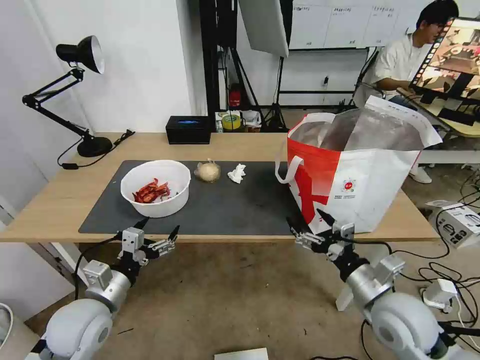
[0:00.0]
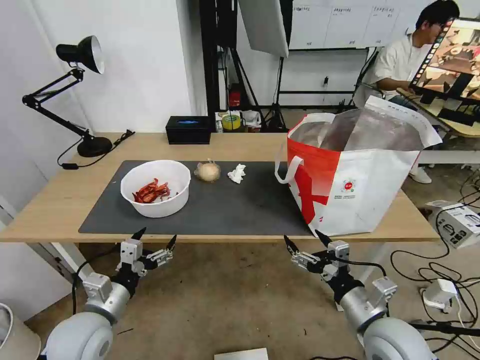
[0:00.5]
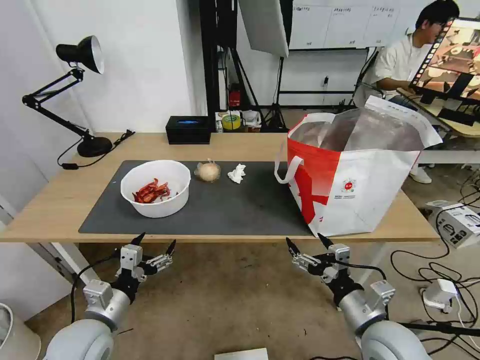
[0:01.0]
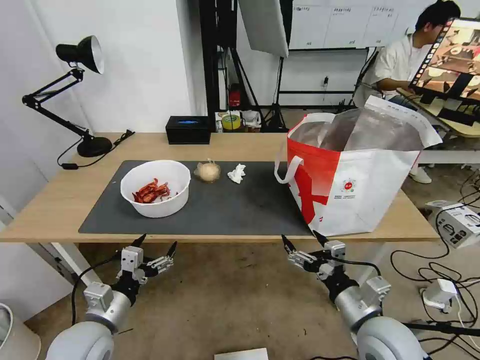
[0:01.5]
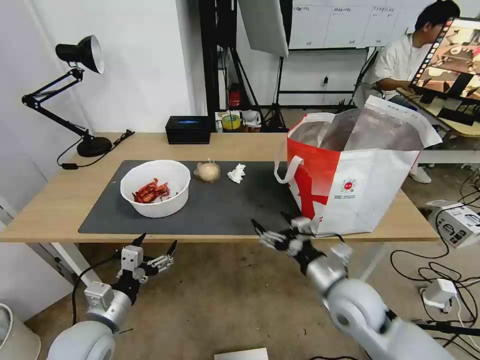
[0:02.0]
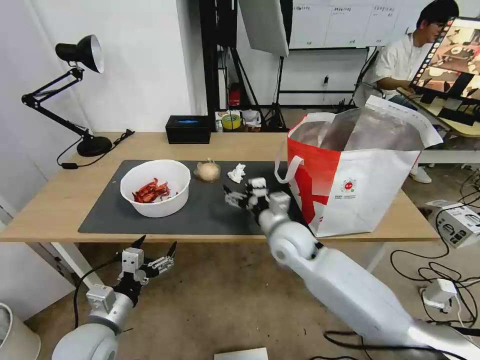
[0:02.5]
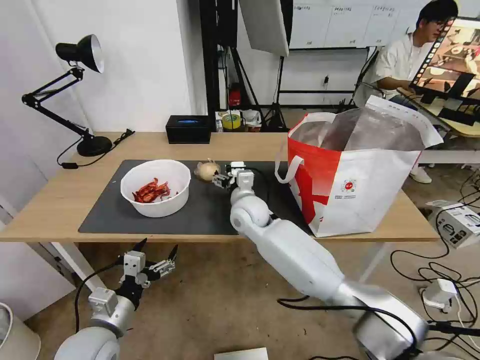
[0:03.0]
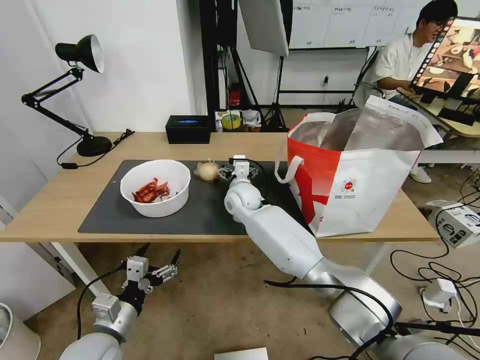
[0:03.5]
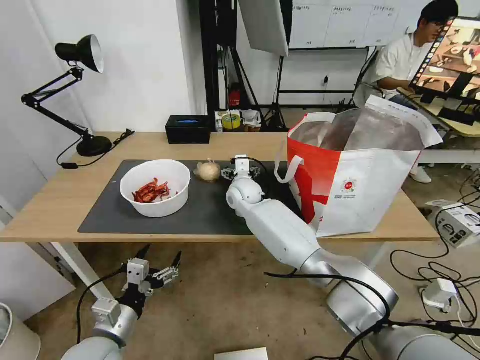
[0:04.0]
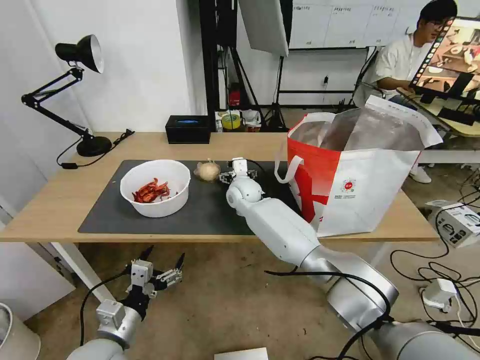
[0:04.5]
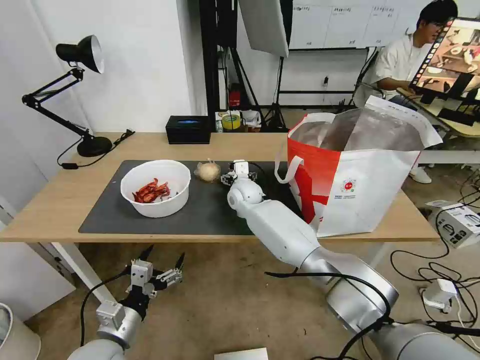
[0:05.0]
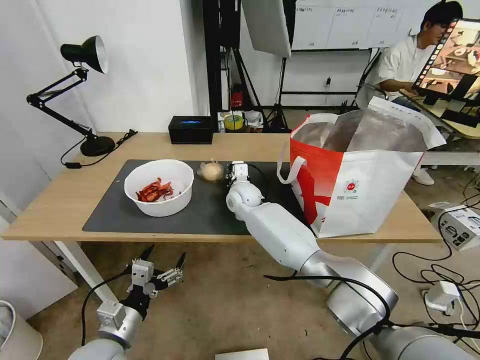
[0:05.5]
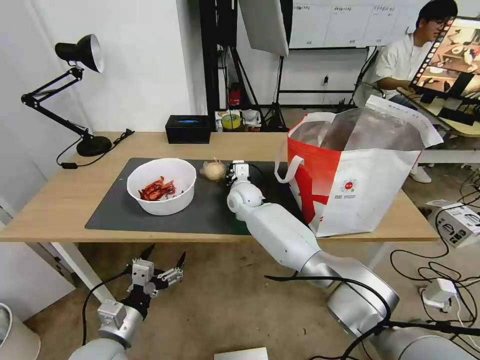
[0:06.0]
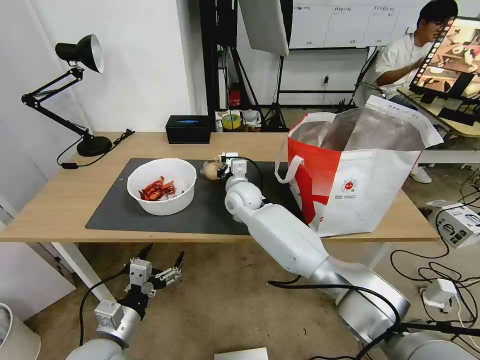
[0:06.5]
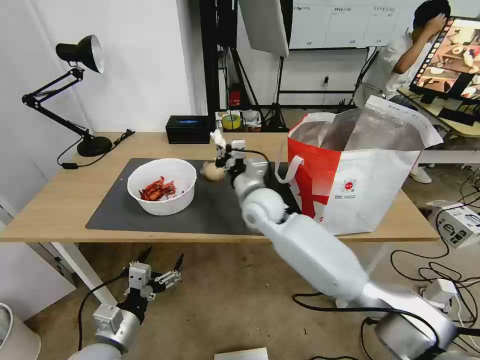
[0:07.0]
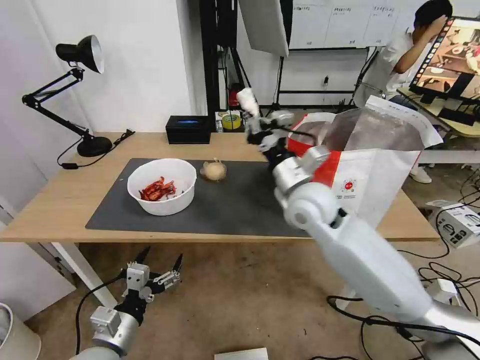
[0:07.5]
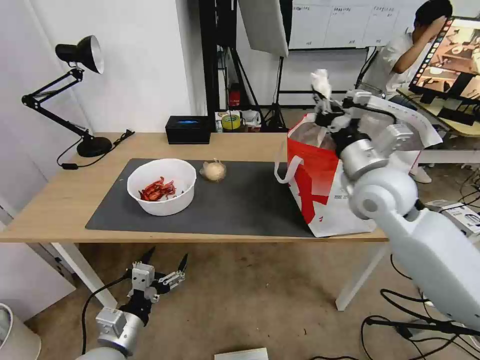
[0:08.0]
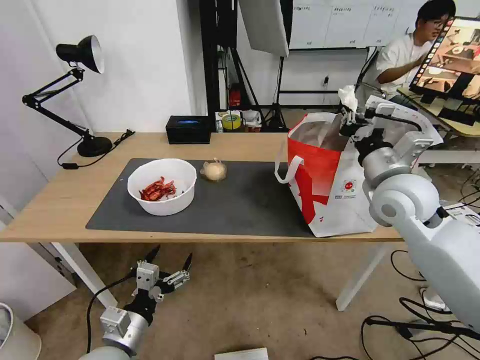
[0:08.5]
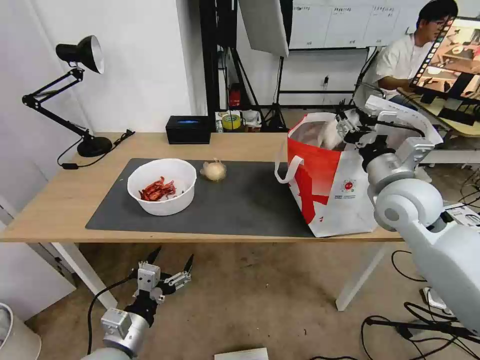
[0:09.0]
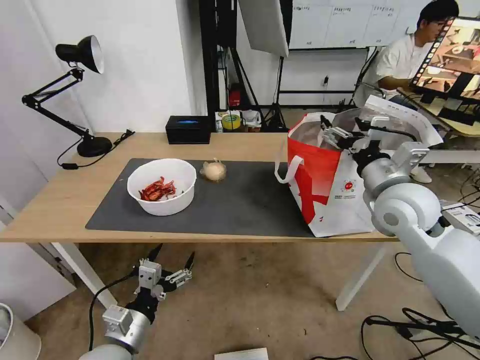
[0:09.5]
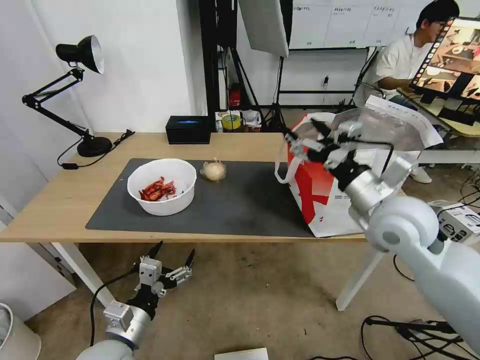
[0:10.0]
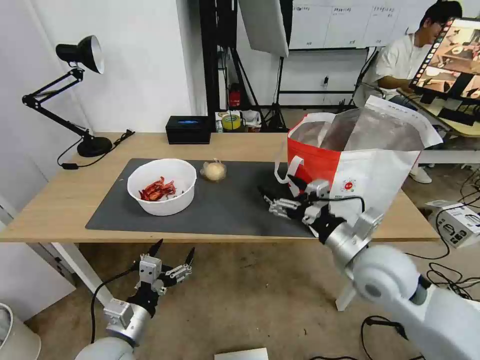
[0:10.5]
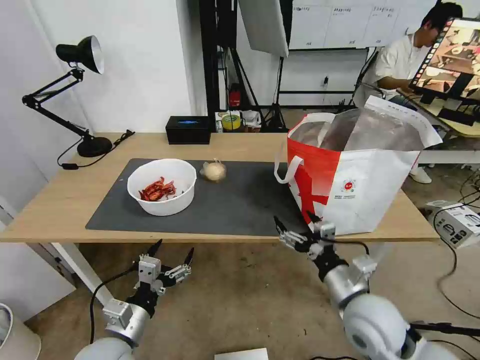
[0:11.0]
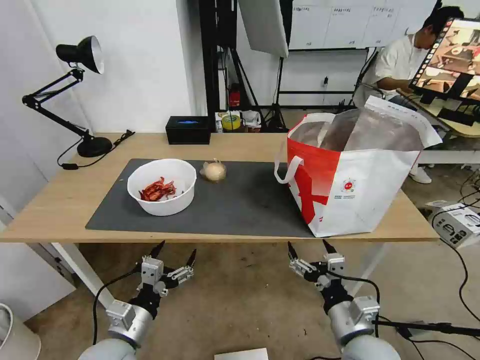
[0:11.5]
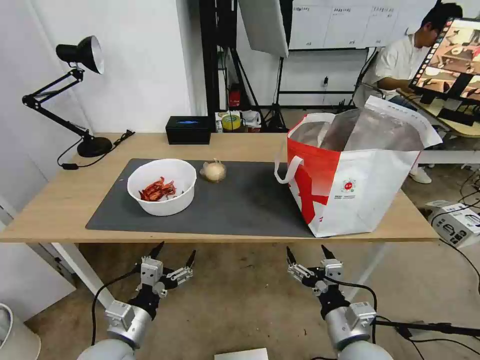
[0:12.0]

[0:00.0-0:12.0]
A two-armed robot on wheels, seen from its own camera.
Task of the whole recording: Pick up the trash from the table and place it into the takeout bag.
0:00.0 to 0:02.0: The right gripper heads to the left, covering about 5 cm.
0:02.0 to 0:04.0: The right gripper travels forward and to the left by roughly 35 cm.
0:04.0 to 0:06.0: The right gripper closes.
0:06.0 to 0:08.0: The right gripper travels to the right, upward and backward by some 35 cm.
0:08.0 to 0:10.0: The right gripper shifts about 5 cm backward, and opens.
0:10.0 to 0:12.0: The right gripper heads downward and backward, covering about 25 cm.

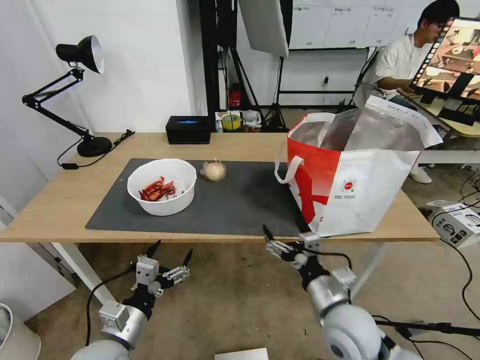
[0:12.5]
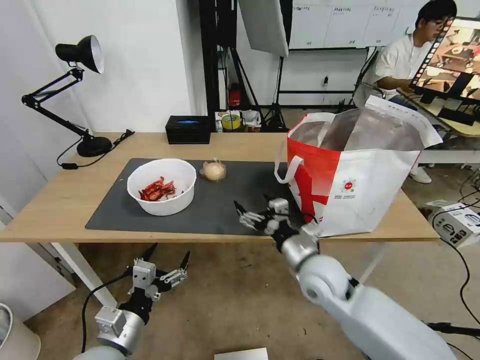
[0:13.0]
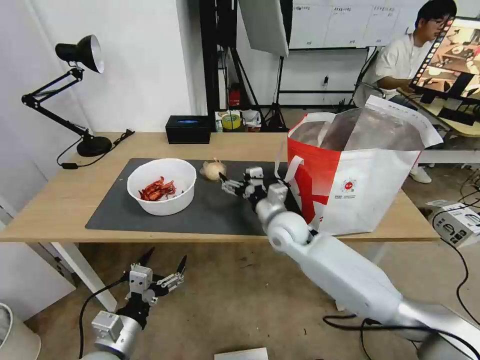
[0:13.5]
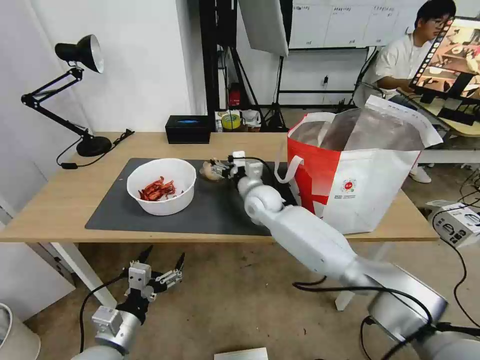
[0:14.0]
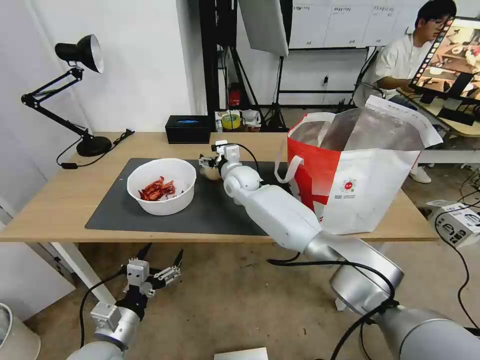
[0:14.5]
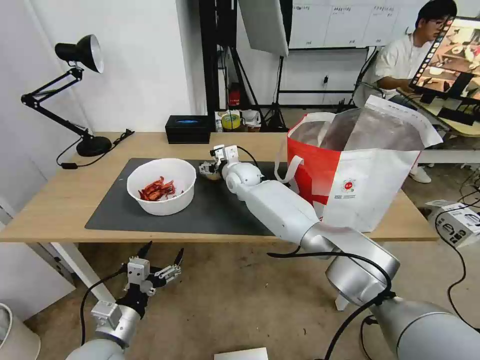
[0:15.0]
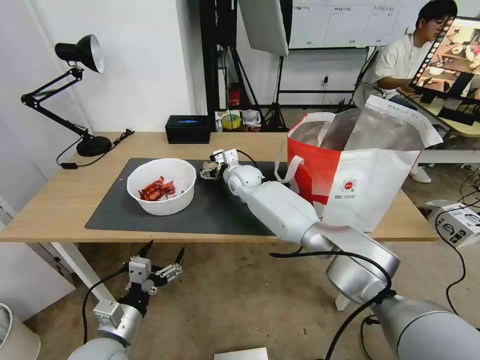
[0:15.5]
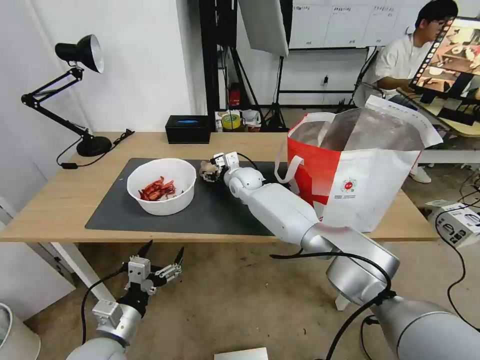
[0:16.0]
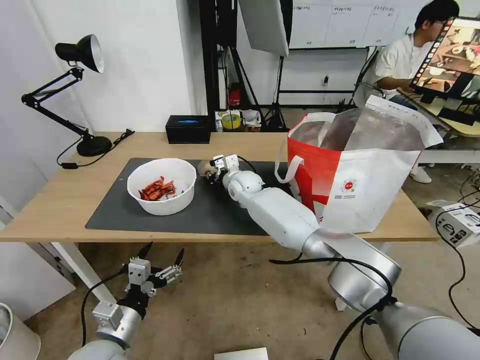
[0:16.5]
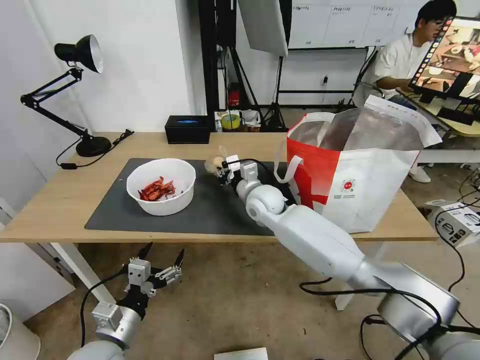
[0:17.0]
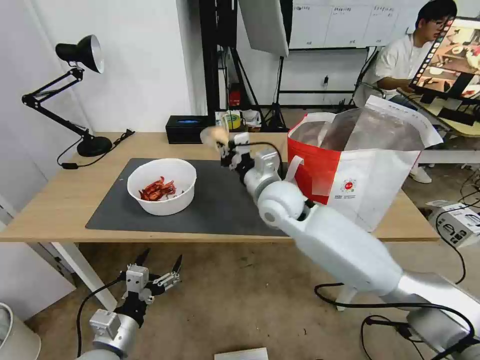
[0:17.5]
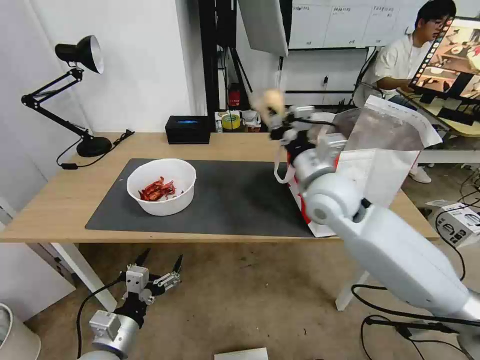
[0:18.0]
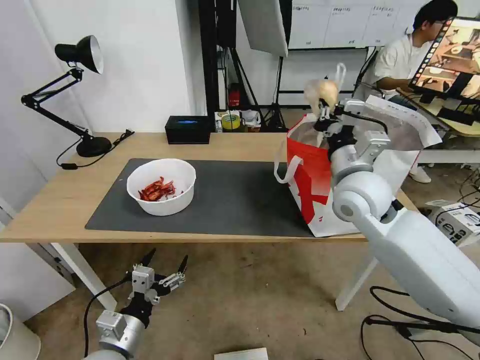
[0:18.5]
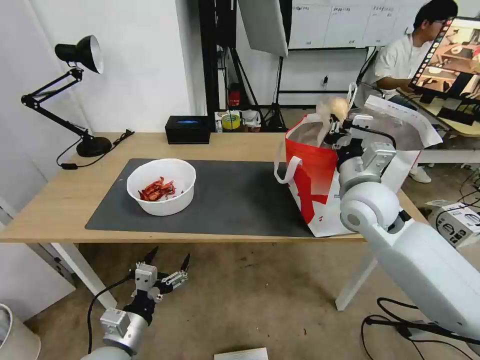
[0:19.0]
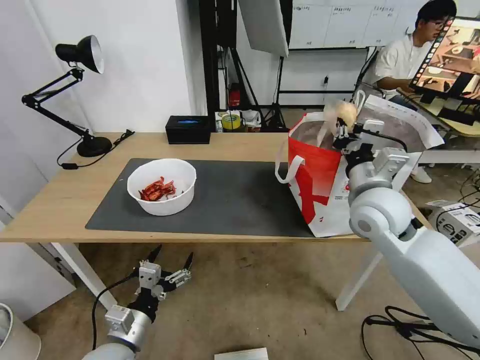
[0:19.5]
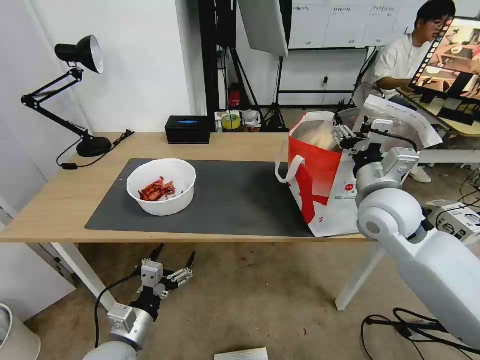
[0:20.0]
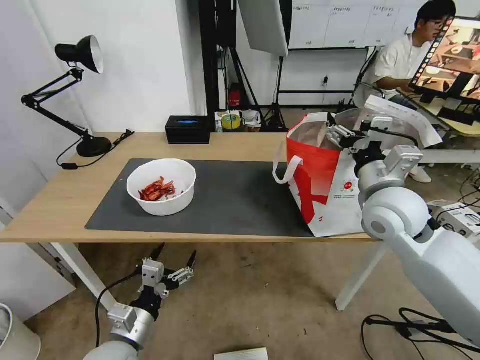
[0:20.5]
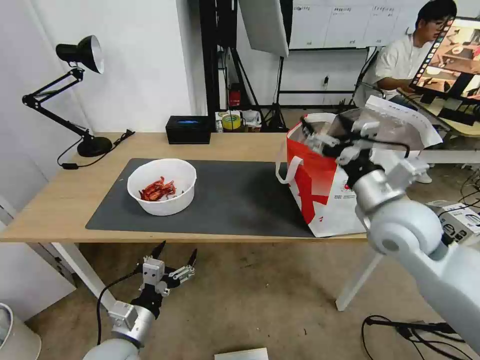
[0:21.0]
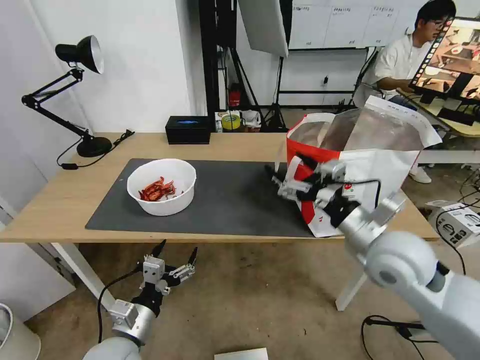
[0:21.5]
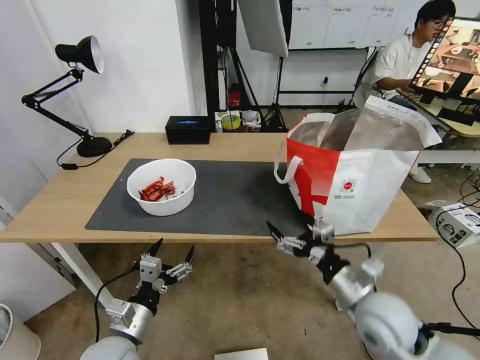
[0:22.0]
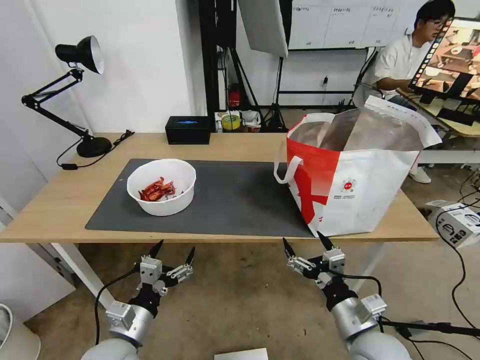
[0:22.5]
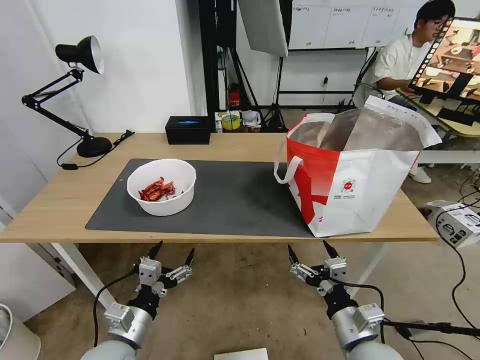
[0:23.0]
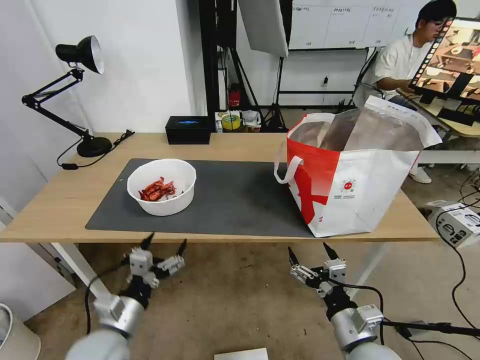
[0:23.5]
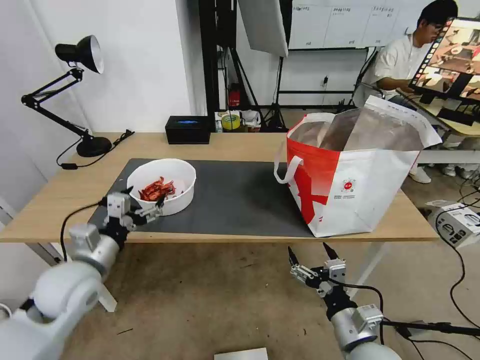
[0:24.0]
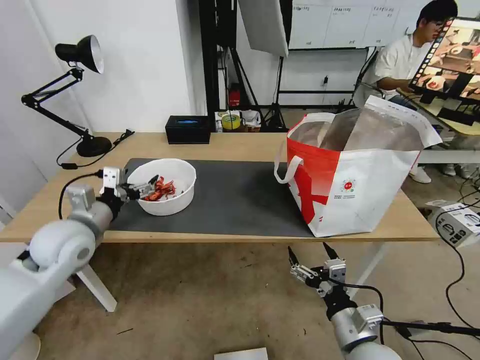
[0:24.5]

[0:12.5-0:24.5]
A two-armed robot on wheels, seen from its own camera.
Task of the whole recording: Pick up the trash from the table and place it into the takeout bag.
0:12.5 to 0:14.5: The right gripper shifts about 40 cm forward and to the left.
0:14.5 to 0:16.5: The right gripper closes.
0:16.5 to 0:18.5: The right gripper shifts about 30 cm to the right, backward and upward.
0:18.5 to 0:20.5: The right gripper shifts by approximately 5 cm, and opens.
0:20.5 to 0:22.5: The right gripper travels backward and downward by some 25 cm.
0:22.5 to 0:24.5: The left gripper heads forward, upward and to the left, covering roughly 25 cm.

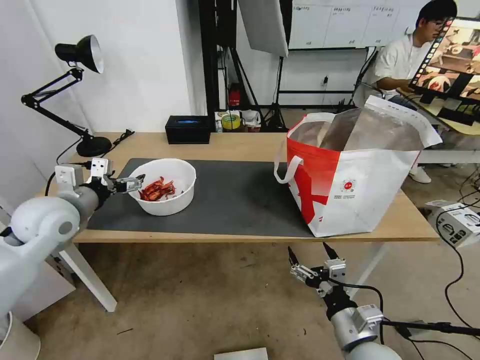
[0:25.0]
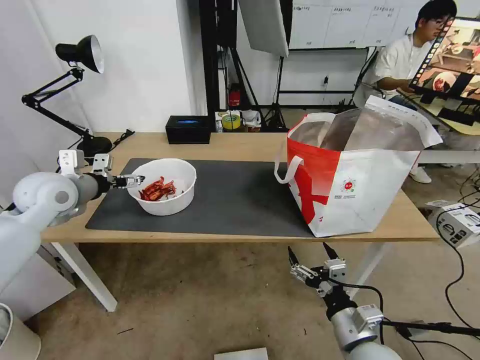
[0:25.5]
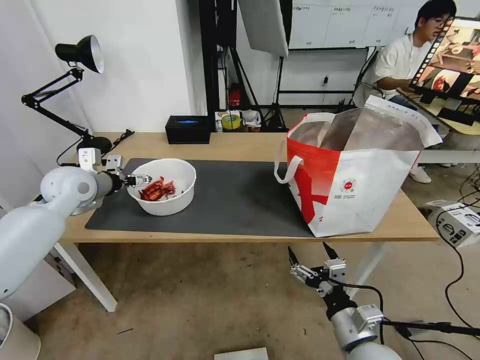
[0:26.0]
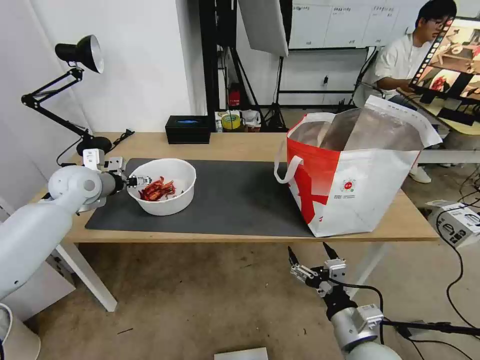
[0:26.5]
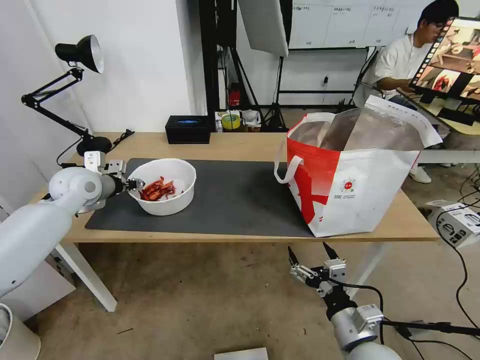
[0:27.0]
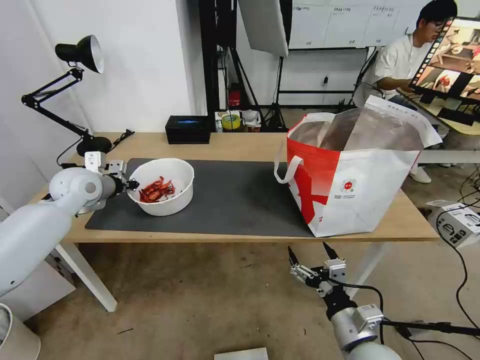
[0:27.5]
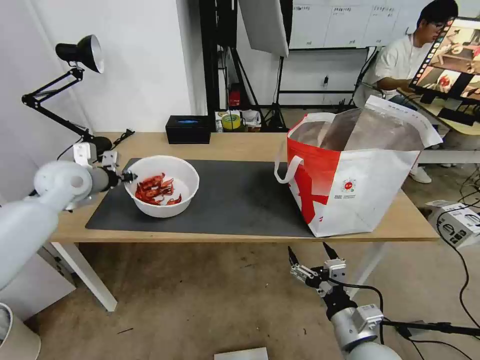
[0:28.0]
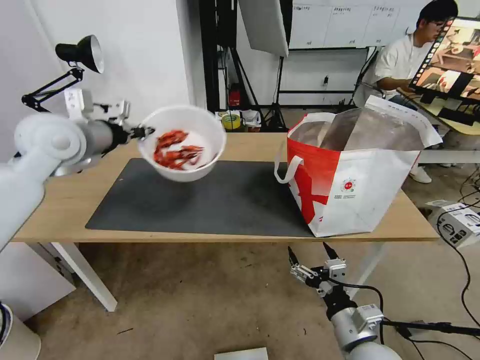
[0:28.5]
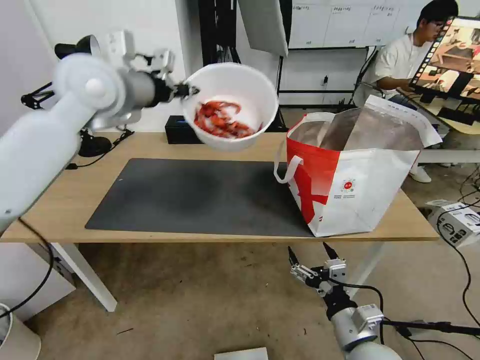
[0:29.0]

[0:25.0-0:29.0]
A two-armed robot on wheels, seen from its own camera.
Task of the whole recording: Pick up the trash from the table and place it into the takeout bag.
0:25.0 to 0:27.0: The left gripper is displaced forward by roughly 10 cm, and closes its fingers.
0:27.0 to 0:29.0: The left gripper travels upward and to the right by some 25 cm, and closes its fingers.
